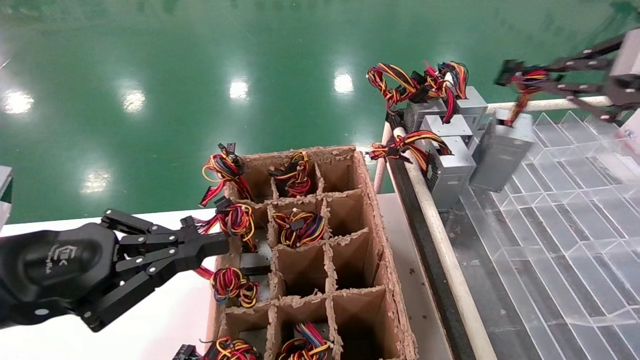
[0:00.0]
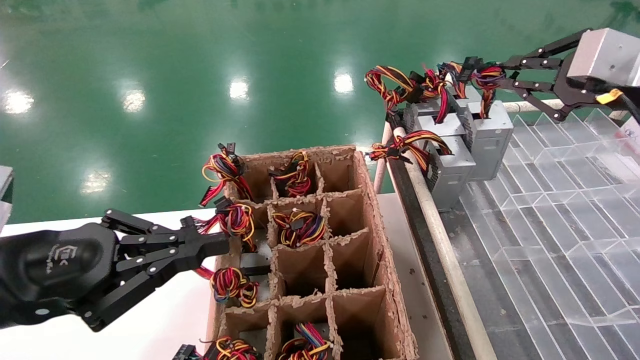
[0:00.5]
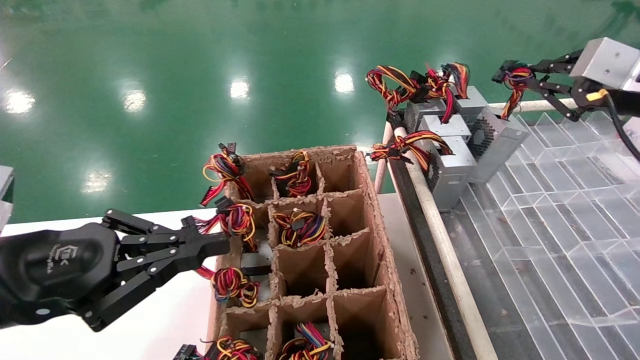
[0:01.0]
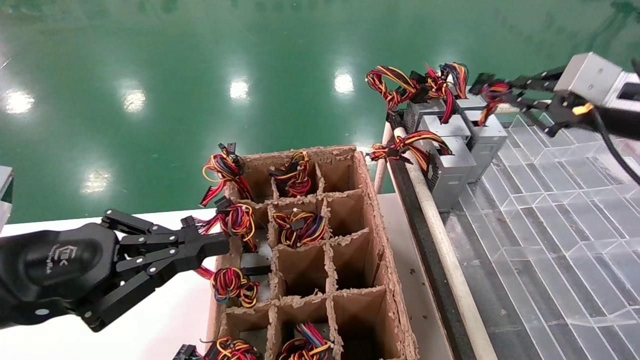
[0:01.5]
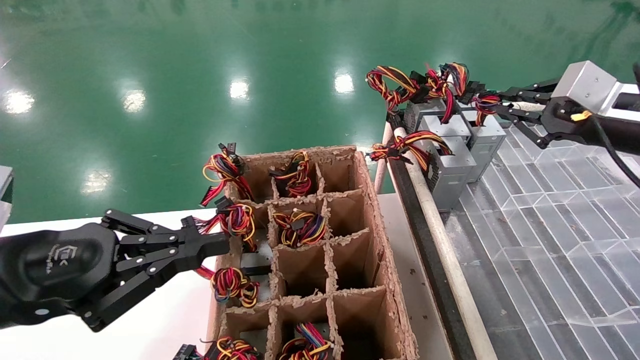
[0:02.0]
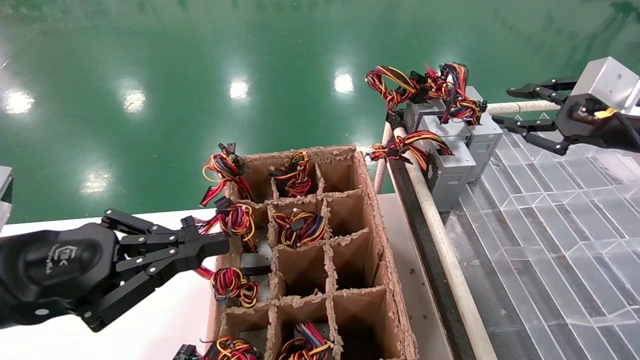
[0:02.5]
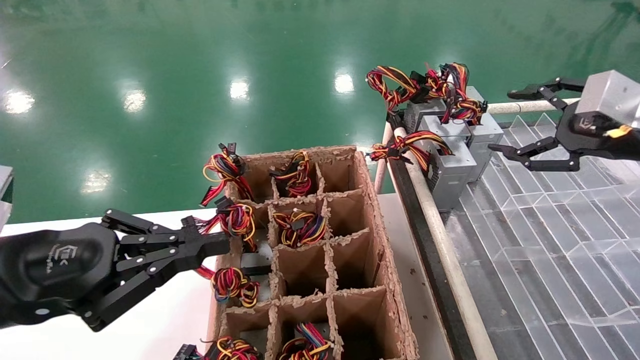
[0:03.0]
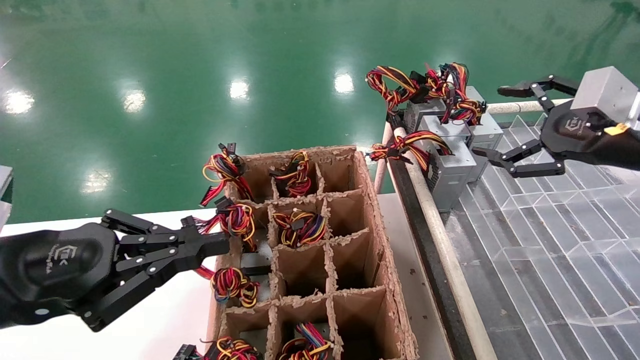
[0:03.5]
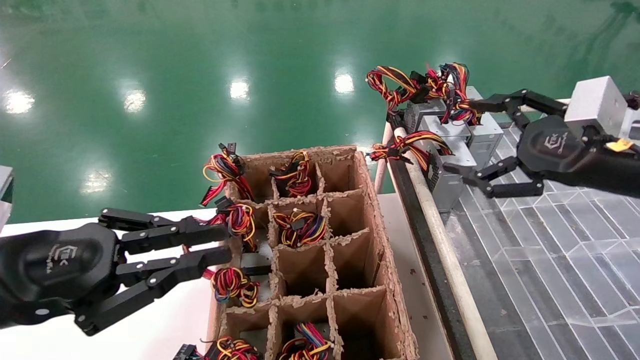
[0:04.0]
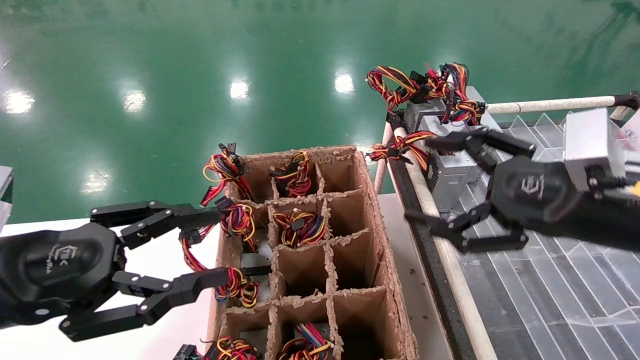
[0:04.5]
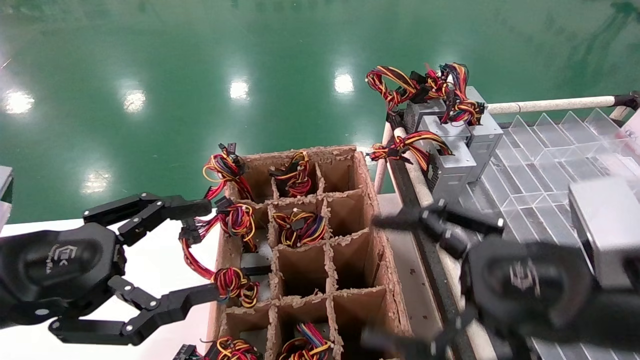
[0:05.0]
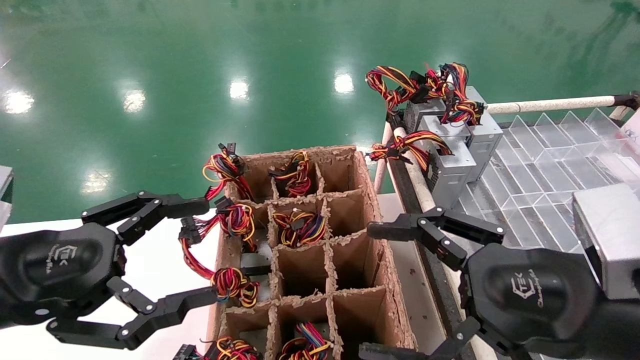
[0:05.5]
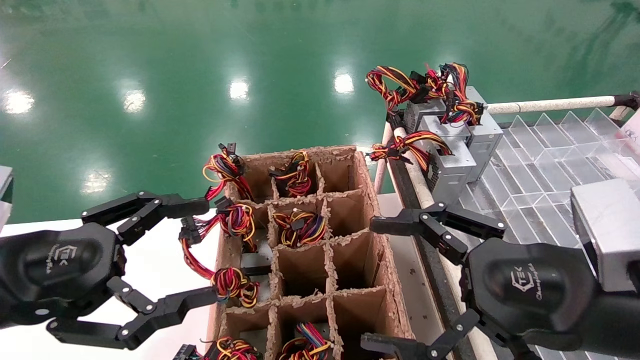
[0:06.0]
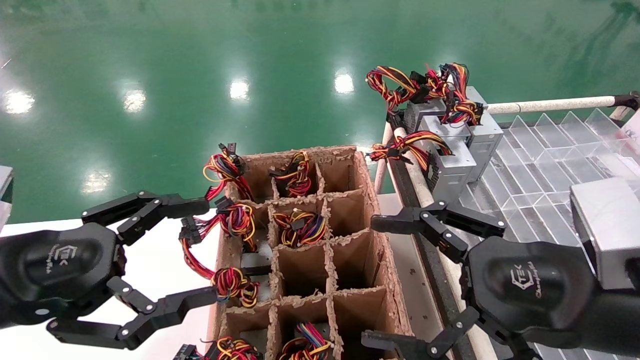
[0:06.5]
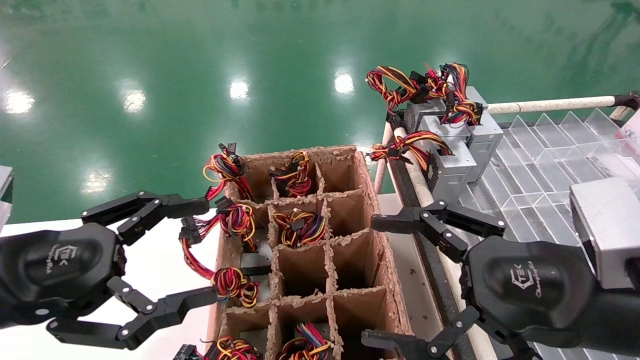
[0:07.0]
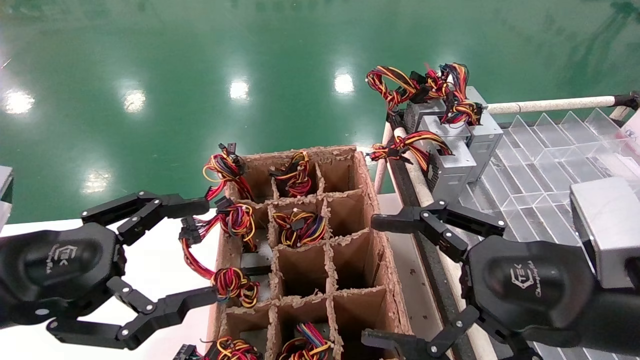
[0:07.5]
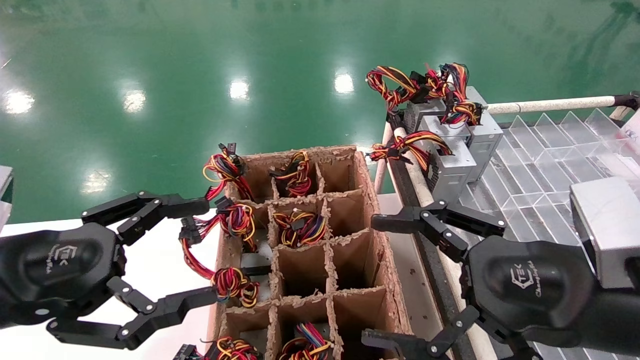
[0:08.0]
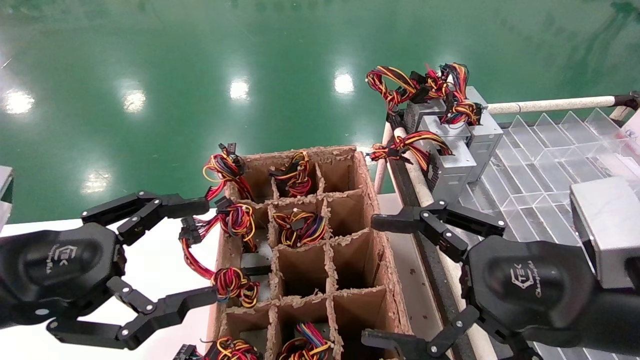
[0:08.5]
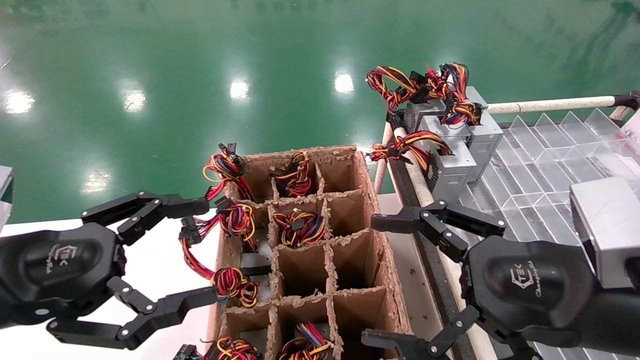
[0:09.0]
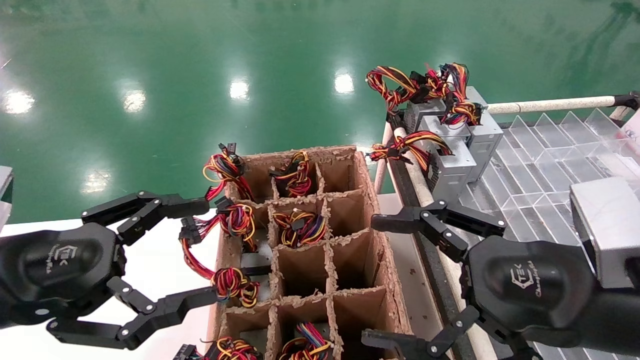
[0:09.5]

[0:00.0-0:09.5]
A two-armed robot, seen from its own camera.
Step, 0:00.0 to 0:02.5: Place the main unit power supply in the designated area.
0:00.0 to 0:02.0: The right gripper goes roughly 10 cm downward and forward.
0:02.0 to 0:04.0: The right gripper goes about 10 cm backward and to the left, and opens up.
0:04.0 to 0:05.5: The right gripper heads backward, to the left and downward, covering some 15 cm, while the left gripper opens up.
0:05.5 to 0:09.5: Both grippers stay put.
